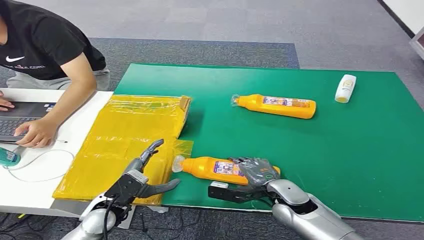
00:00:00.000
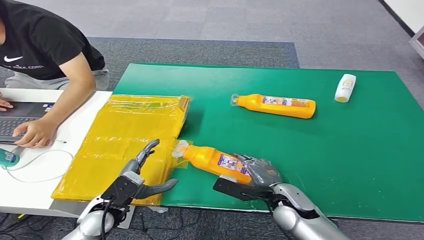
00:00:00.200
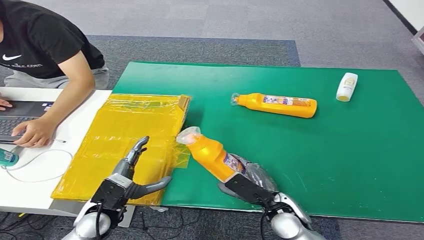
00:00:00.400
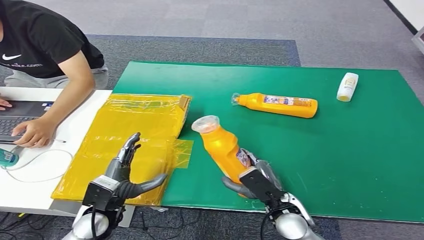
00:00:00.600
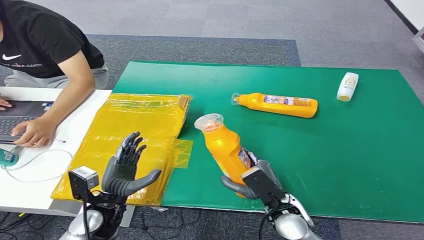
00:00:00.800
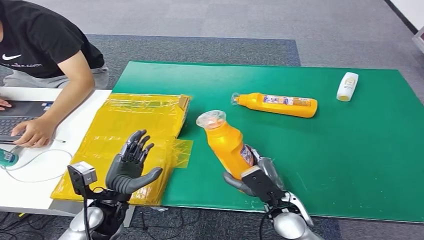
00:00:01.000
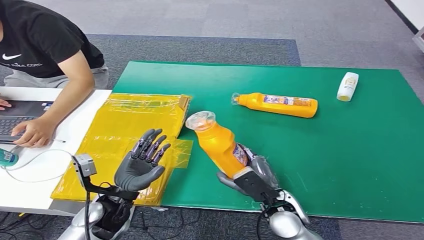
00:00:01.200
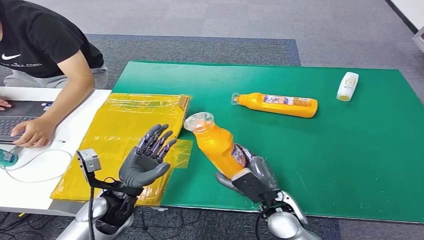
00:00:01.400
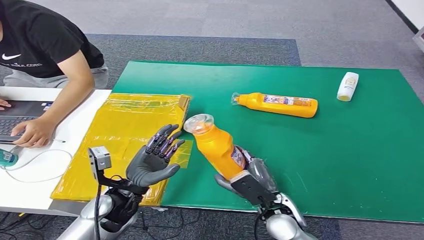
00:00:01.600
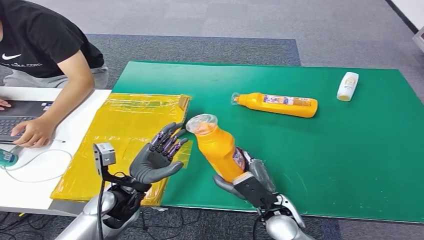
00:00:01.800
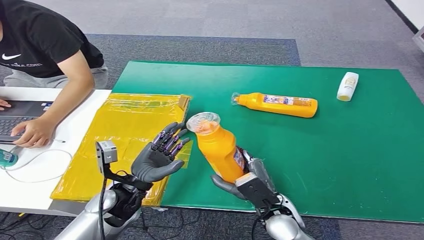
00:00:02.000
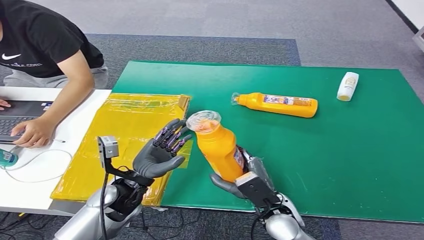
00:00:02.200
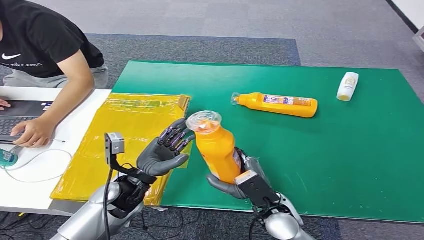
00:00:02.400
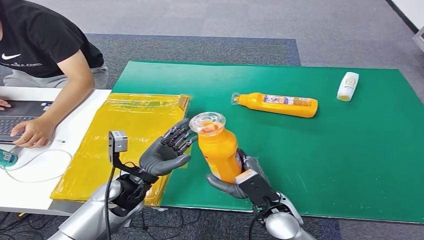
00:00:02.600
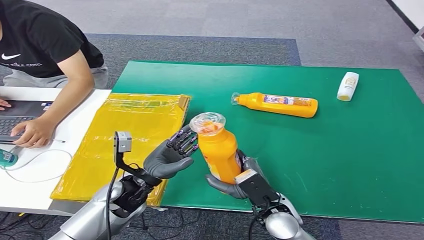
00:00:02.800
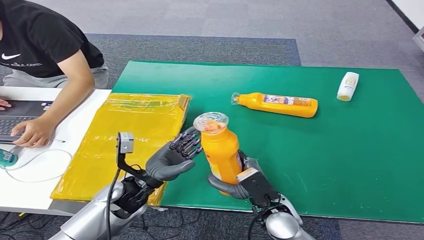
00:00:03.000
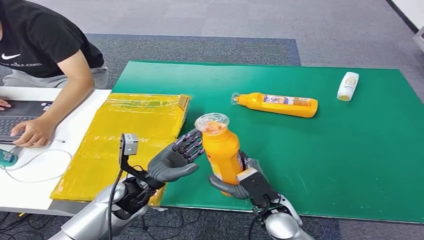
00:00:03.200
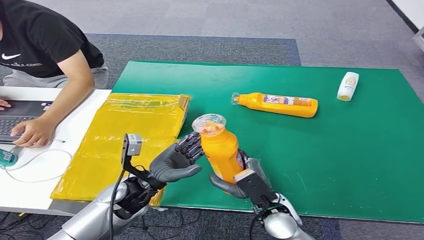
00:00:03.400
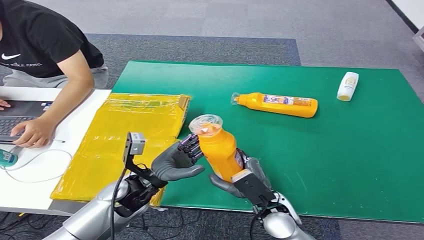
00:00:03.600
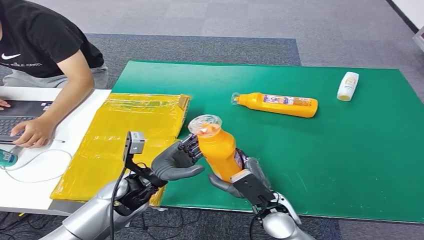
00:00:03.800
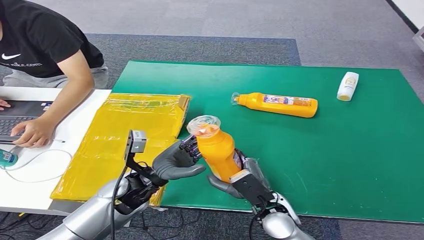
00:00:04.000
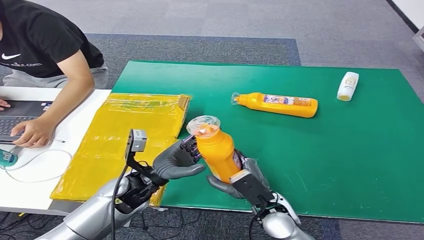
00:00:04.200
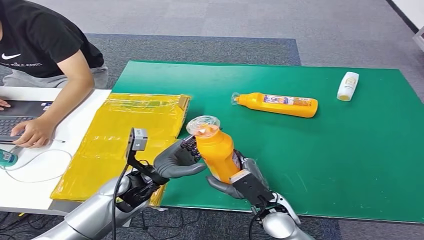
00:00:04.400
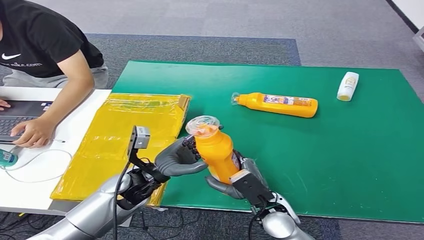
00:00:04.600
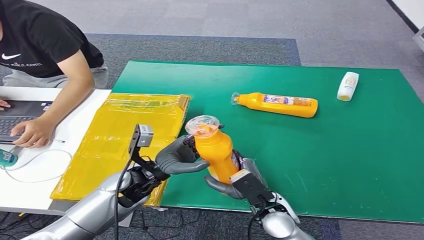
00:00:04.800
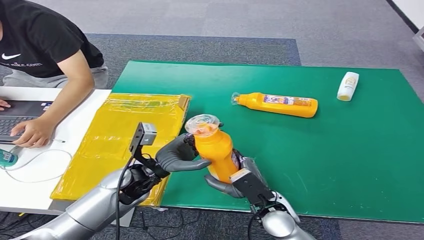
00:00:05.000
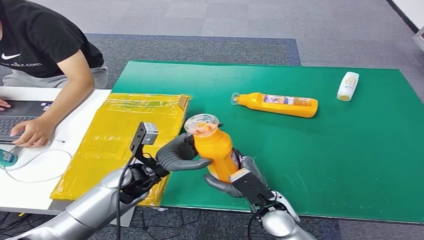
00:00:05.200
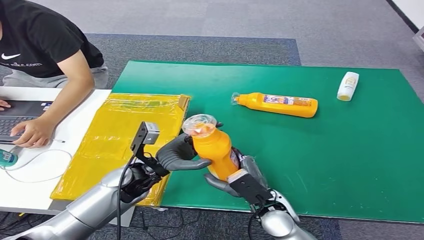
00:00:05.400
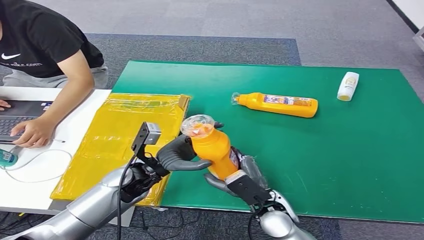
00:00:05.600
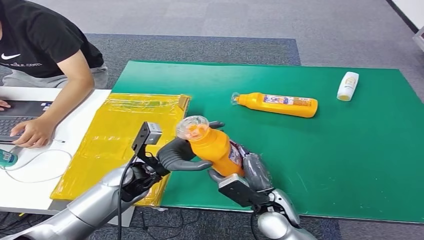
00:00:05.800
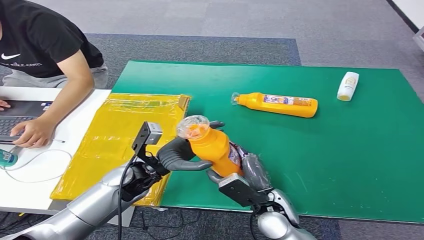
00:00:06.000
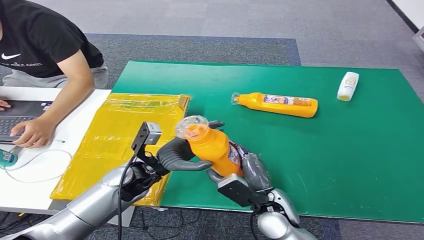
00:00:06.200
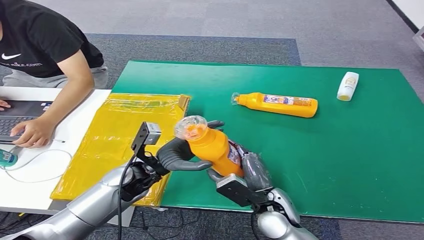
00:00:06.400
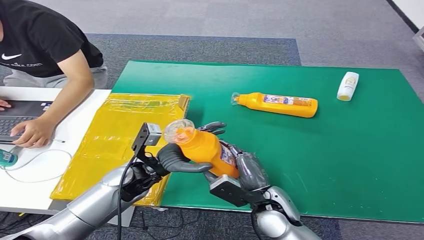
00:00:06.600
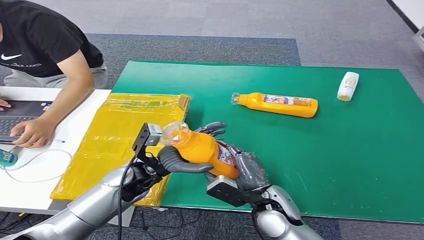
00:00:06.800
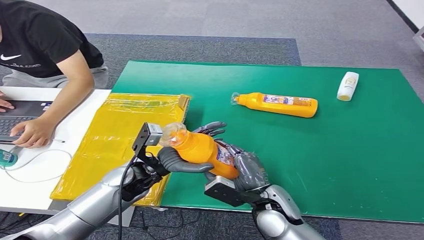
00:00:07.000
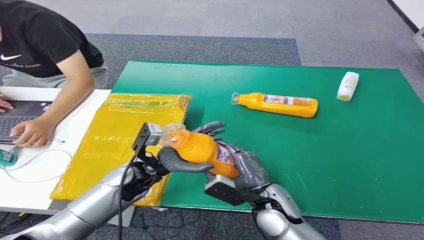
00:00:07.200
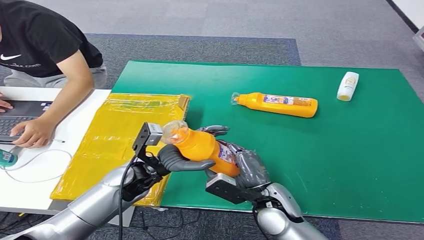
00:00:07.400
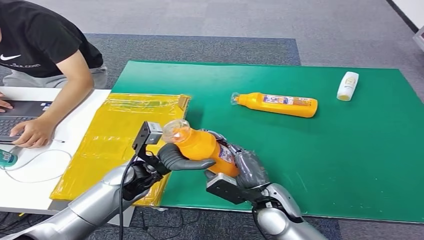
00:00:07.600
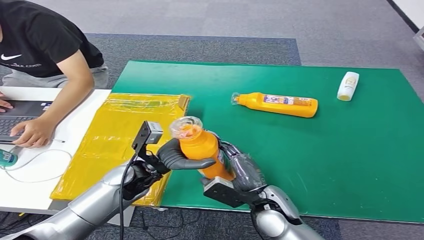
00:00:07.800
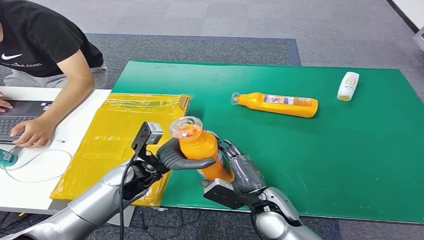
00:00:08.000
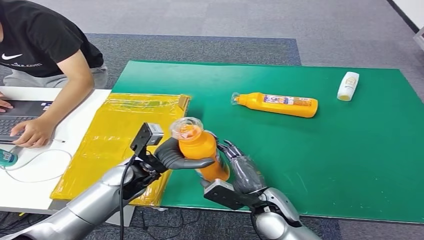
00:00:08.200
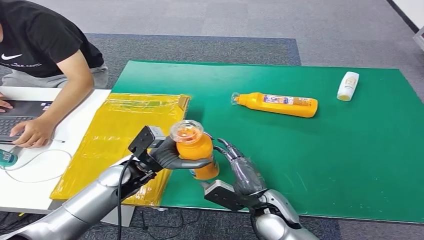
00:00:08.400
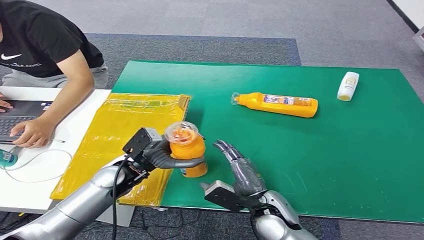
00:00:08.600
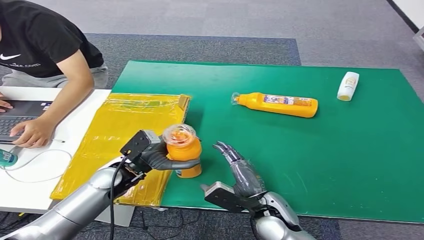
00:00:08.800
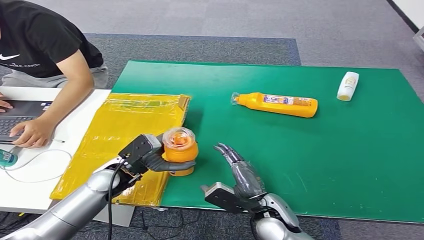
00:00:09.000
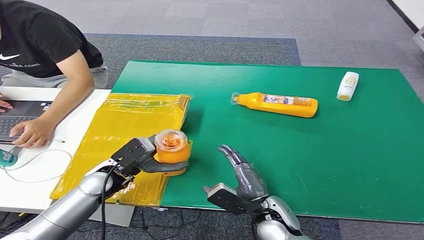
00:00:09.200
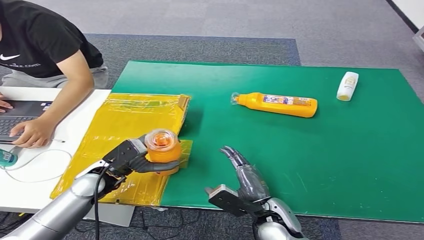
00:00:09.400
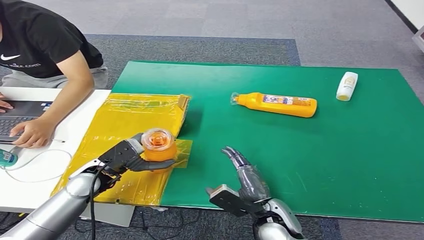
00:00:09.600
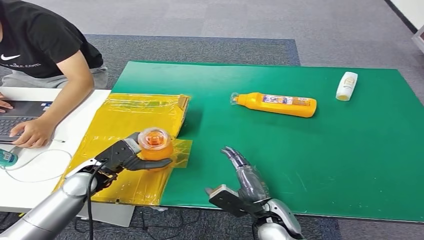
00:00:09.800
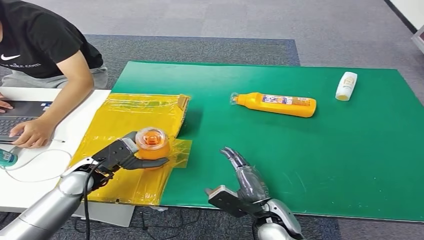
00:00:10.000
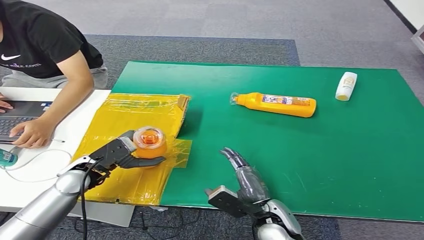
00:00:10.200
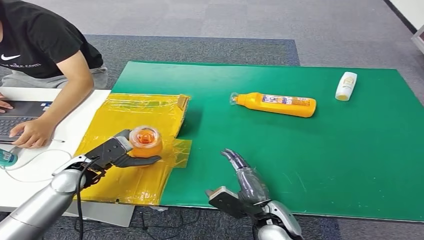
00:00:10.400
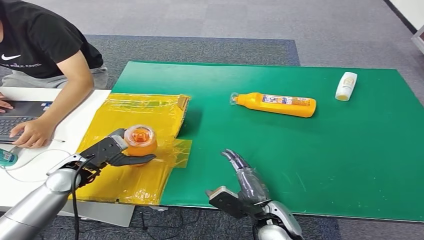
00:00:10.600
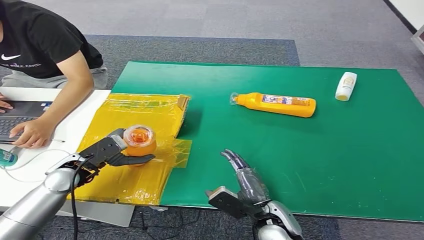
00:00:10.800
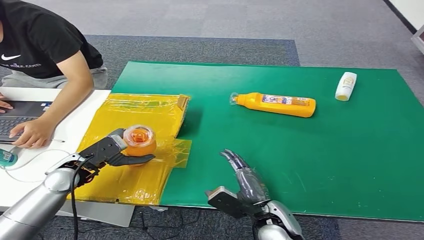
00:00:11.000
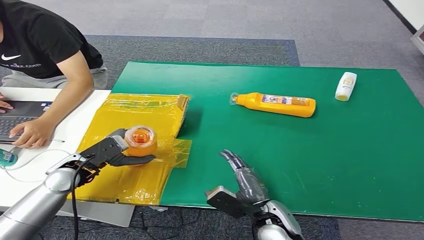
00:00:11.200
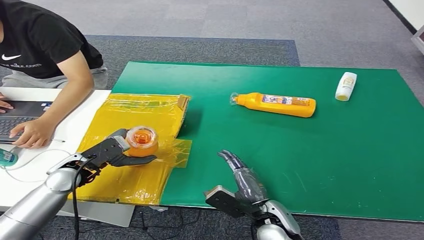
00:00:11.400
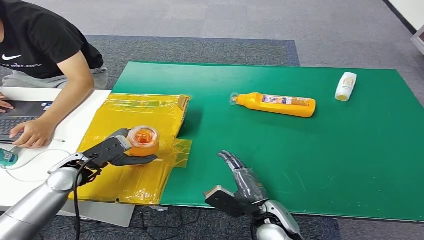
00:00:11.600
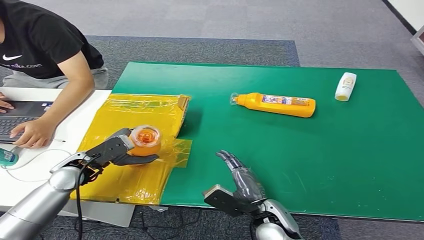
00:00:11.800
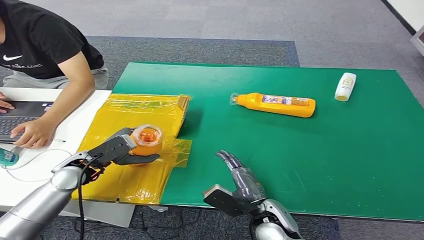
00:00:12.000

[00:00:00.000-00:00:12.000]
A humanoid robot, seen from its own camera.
Step, 00:00:00.000 to 00:00:03.200: Pick up the bottle from the table.
00:00:01.600 to 00:00:03.000: The hands stay close to where they were, moving slightly.
00:00:03.000 to 00:00:04.400: There are only small adjustments of the hands.
00:00:04.400 to 00:00:06.000: The hands move only a little.
00:00:06.000 to 00:00:07.600: The hands stay close to where they were, moving slightly.
00:00:07.600 to 00:00:09.000: The left hand heads to the left, covering approximately 5 cm.
00:00:09.000 to 00:00:10.400: The left hand heads to the left, covering about 10 cm.
00:00:10.400 to 00:00:12.000: The hands stay close to where they were, moving slightly.

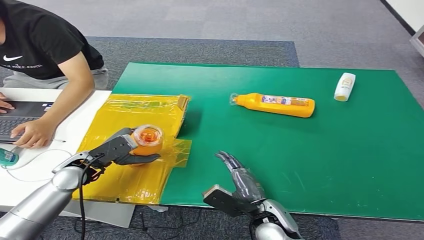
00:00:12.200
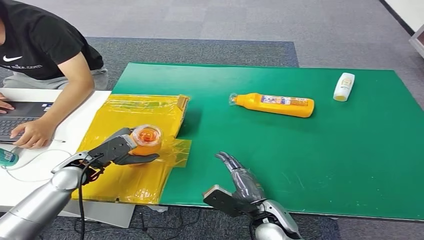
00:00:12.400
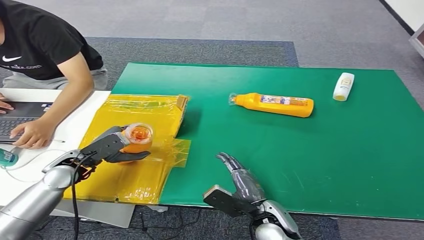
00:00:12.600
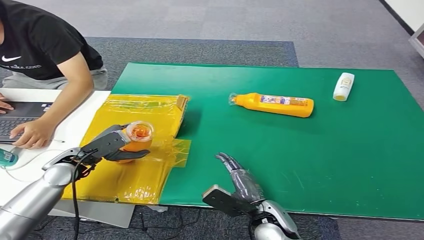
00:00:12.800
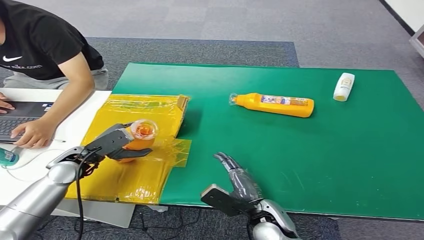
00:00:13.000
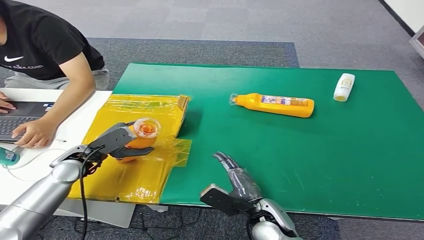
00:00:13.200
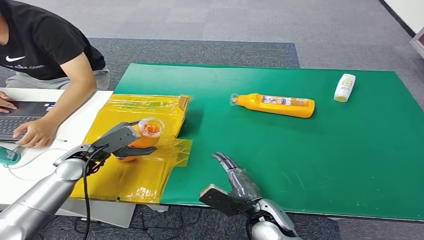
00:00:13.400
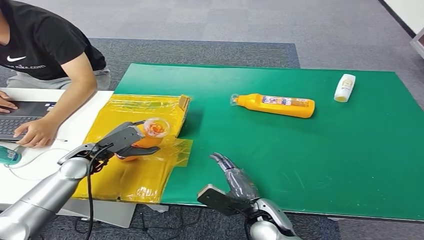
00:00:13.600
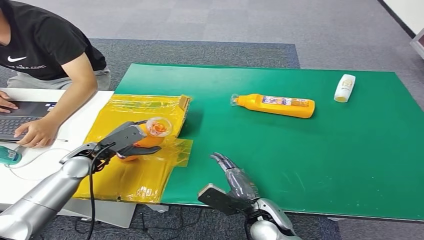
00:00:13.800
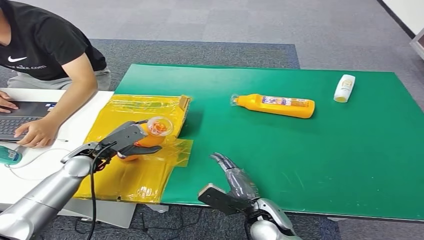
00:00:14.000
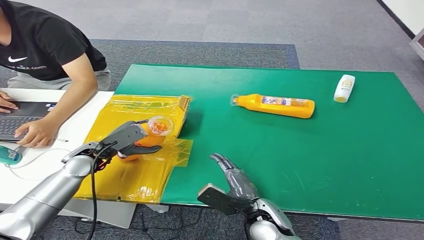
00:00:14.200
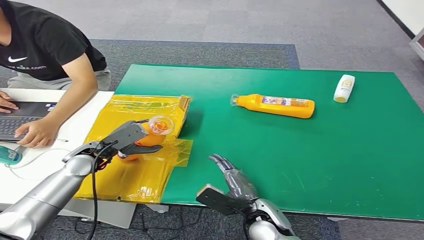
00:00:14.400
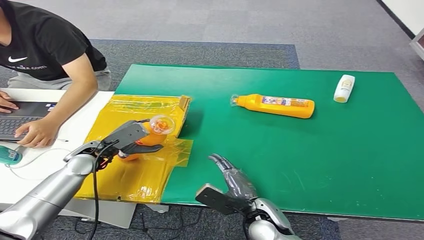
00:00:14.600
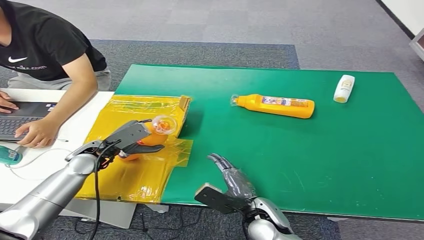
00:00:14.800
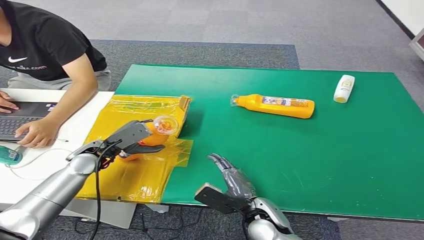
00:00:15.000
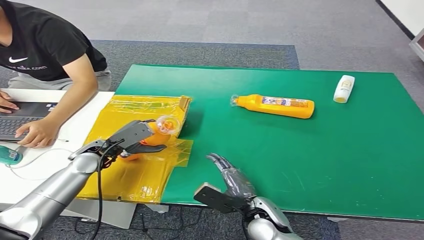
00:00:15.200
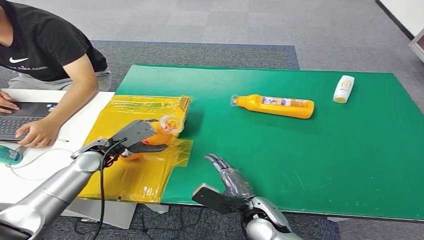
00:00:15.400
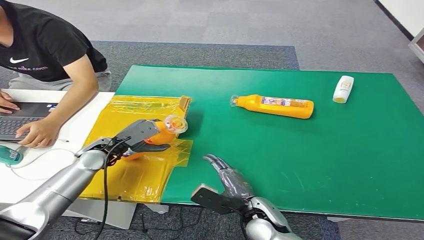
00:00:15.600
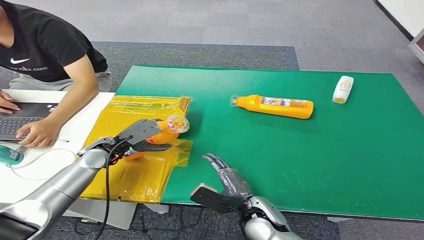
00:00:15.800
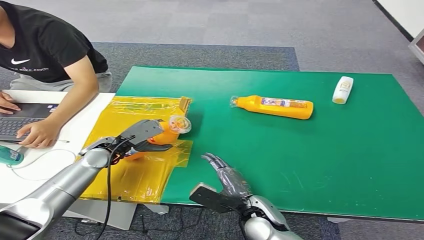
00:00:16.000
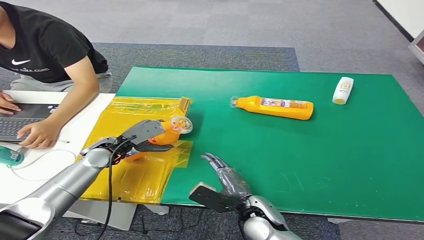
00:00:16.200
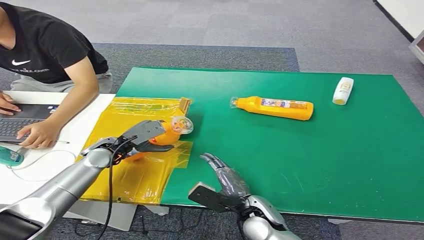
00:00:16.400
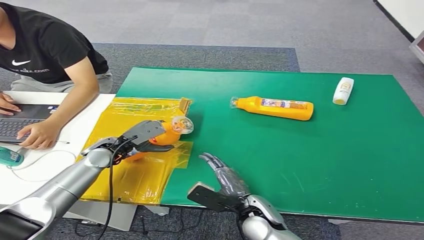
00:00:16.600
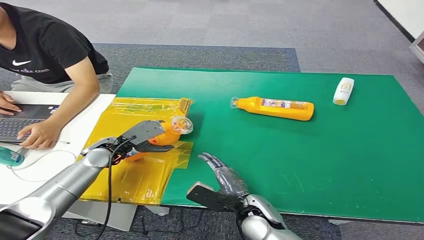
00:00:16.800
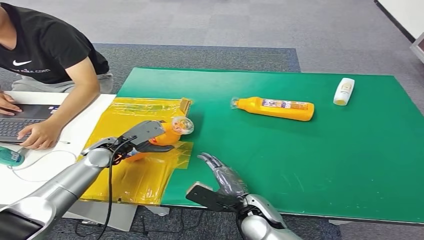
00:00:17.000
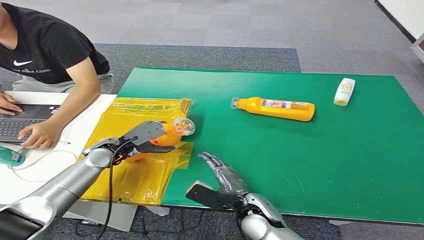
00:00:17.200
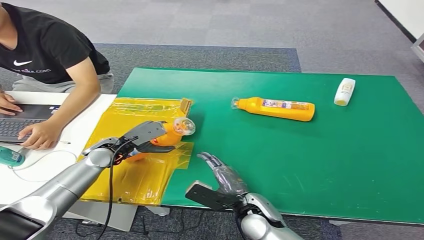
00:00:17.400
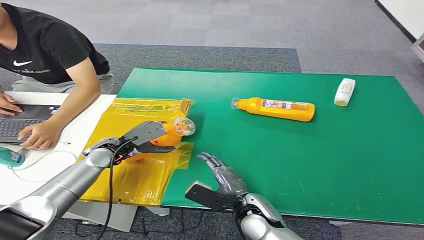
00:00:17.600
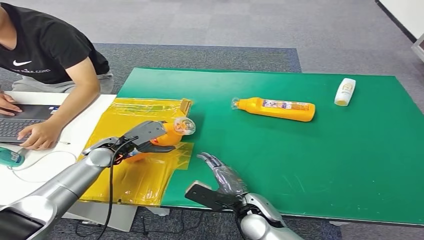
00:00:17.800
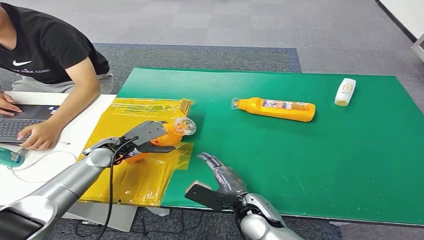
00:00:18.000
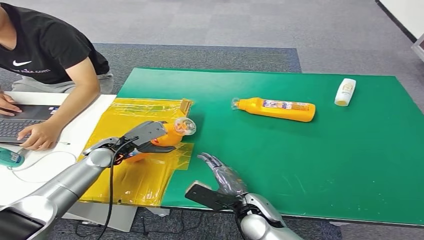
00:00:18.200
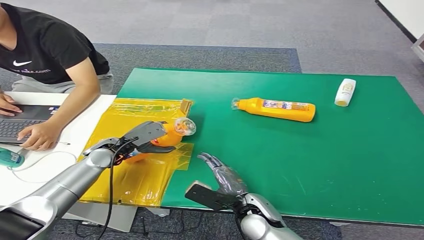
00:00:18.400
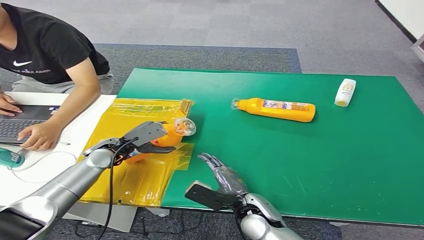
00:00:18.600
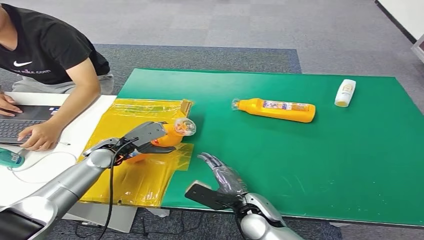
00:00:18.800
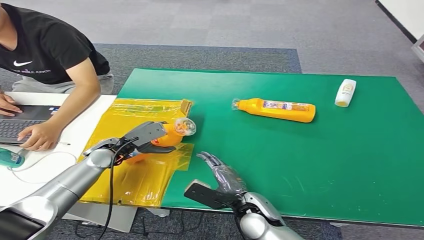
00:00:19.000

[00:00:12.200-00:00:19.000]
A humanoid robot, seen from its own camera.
00:00:12.200 to 00:00:15.000: The hands stay close to where they were, moving slightly.
00:00:15.000 to 00:00:16.200: The hands make only small movements.
00:00:16.200 to 00:00:19.000: Both hands stay put.
